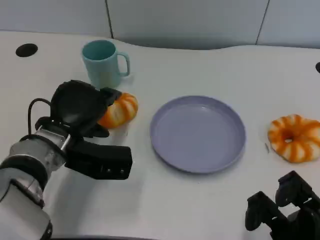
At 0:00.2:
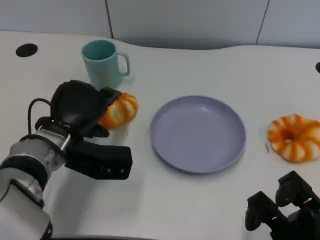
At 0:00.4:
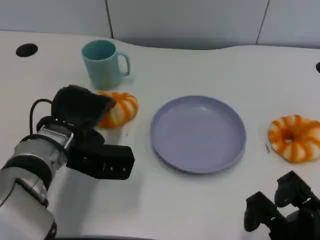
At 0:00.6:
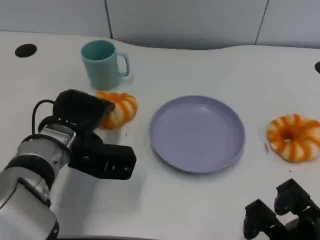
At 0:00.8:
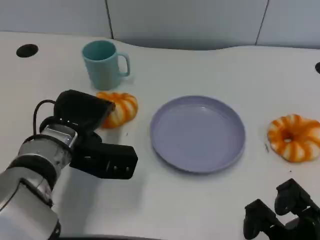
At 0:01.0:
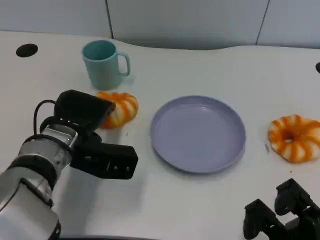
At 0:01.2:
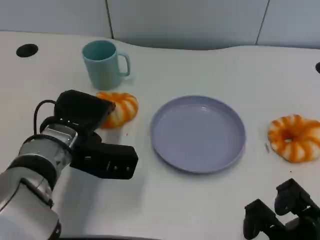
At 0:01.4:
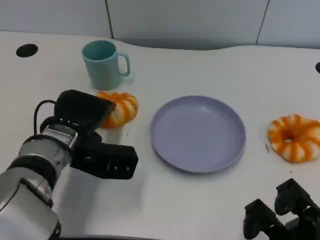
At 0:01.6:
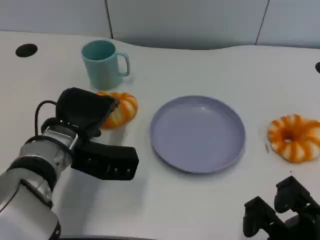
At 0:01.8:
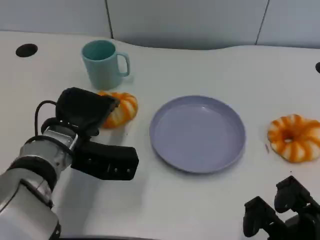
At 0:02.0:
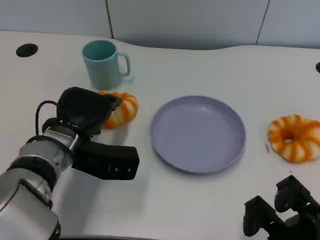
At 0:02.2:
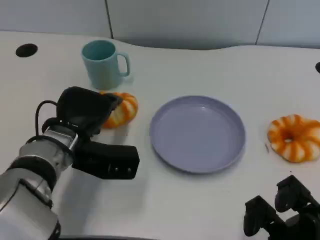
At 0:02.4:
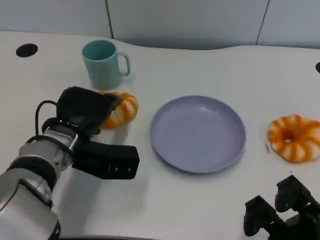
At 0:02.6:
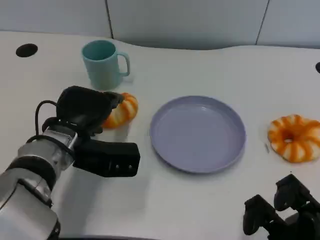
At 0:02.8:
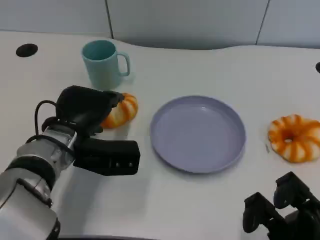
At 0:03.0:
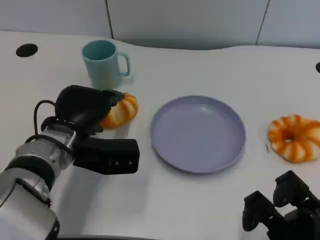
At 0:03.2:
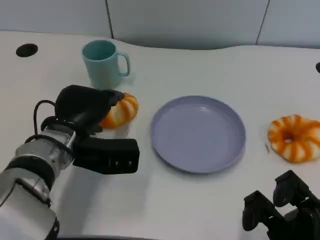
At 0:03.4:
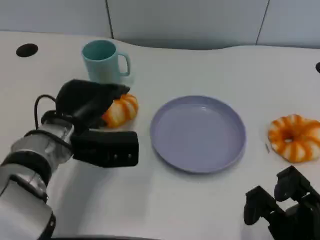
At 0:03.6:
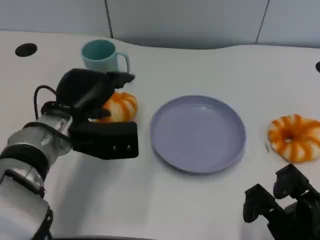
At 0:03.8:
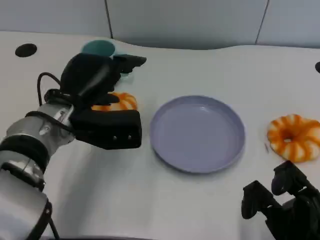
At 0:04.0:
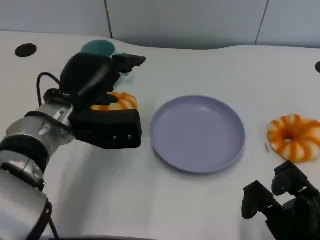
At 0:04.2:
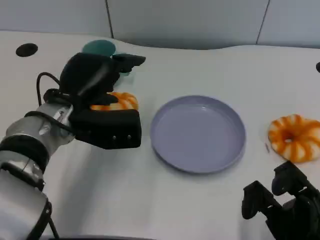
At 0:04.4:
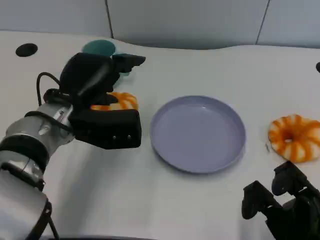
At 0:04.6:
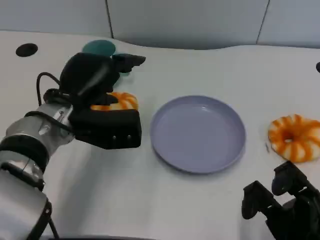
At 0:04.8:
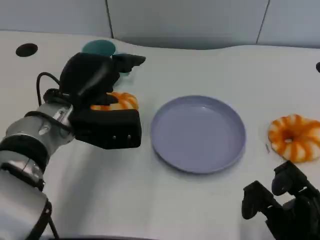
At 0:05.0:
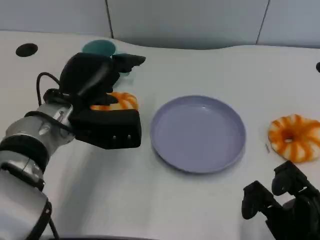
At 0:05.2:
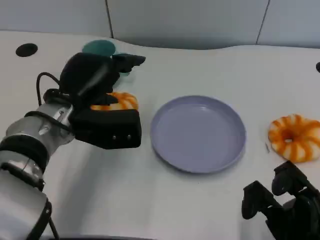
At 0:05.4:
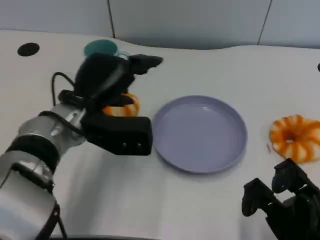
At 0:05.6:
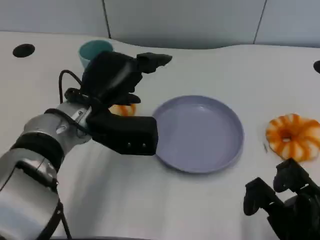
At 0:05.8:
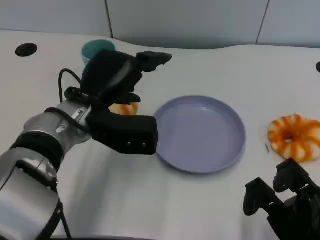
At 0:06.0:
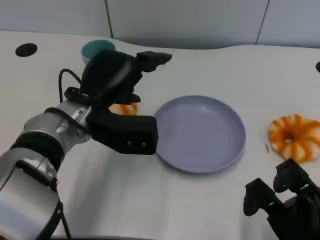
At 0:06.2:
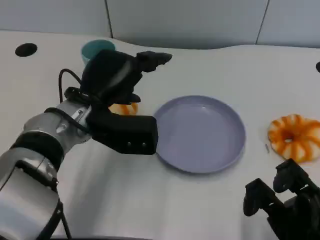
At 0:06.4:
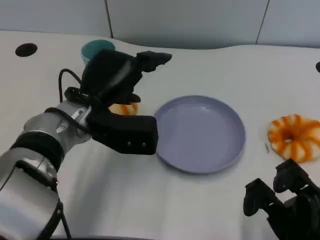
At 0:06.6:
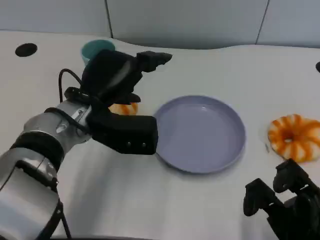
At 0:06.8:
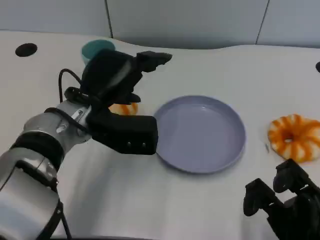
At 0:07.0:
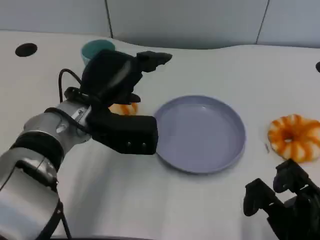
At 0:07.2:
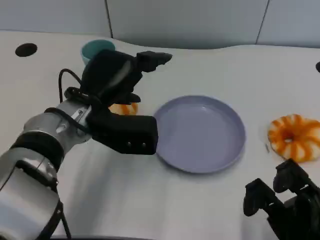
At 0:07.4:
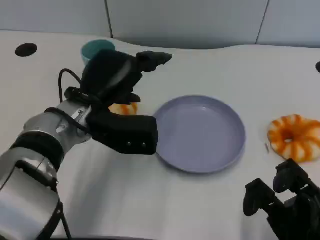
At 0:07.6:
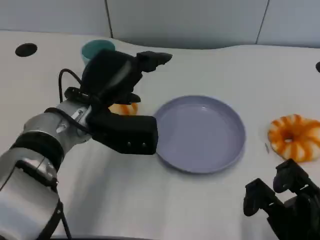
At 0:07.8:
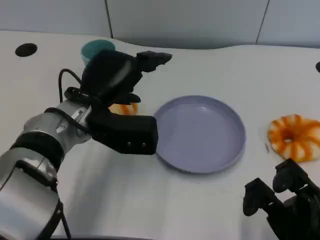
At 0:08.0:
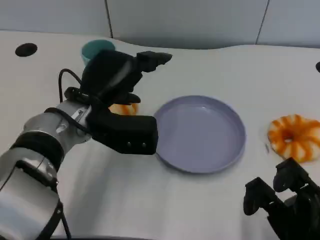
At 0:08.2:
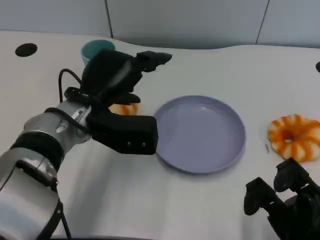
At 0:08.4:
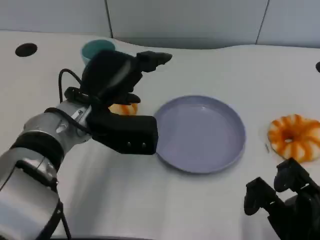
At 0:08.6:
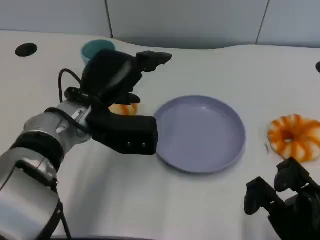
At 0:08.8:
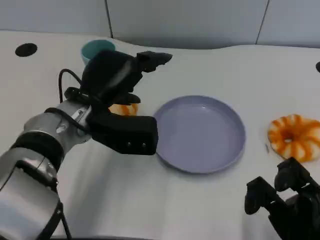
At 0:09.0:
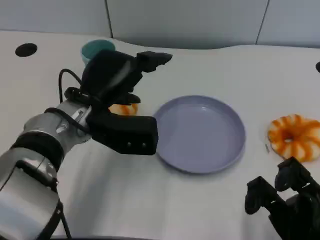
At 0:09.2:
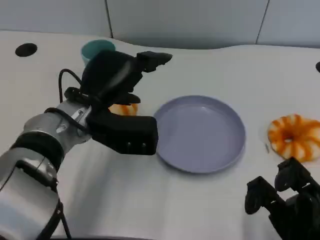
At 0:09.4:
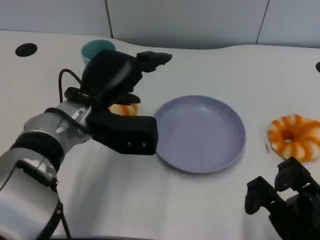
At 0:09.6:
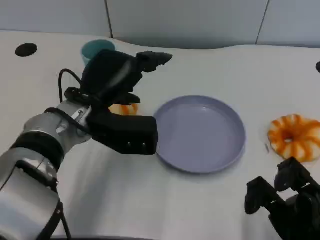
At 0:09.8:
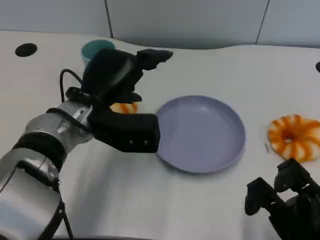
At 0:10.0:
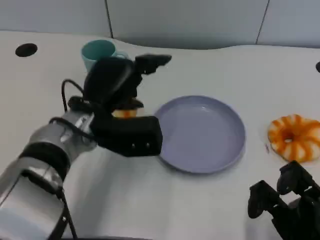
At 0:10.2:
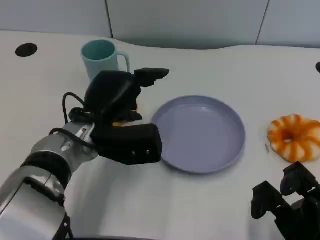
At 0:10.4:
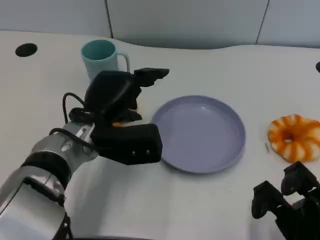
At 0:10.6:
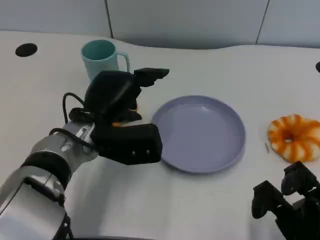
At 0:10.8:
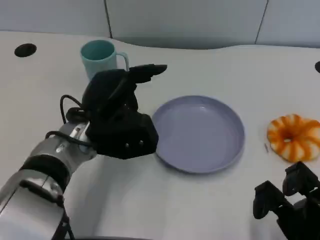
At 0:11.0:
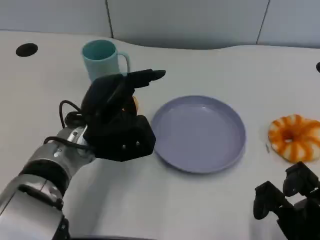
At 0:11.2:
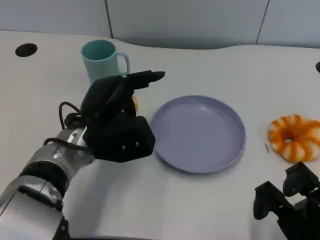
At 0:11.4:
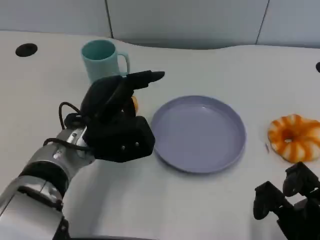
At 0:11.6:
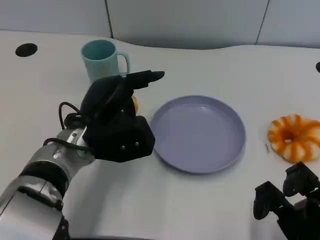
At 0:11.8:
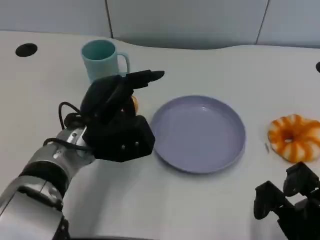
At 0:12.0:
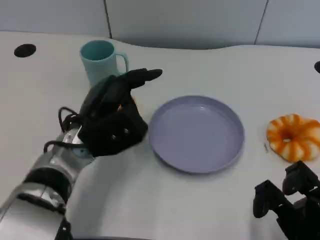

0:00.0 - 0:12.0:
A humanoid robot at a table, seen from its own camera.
Task of the whole recording: Grasp the bread from the table and place it into the plate.
0:00.0 - 0:03.0: There are only small adjustments of the hands.
0:03.0 - 0:04.4: There are only small adjustments of the hands.
0:04.4 - 0:06.0: There are only small adjustments of the hands.
0:06.0 - 0:09.0: Both hands stay put.
0:09.0 - 0:10.4: The hands stay close to where they were, moving slightly.

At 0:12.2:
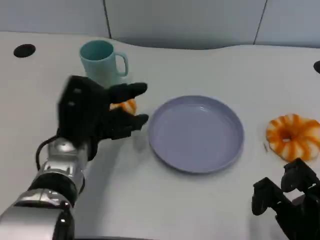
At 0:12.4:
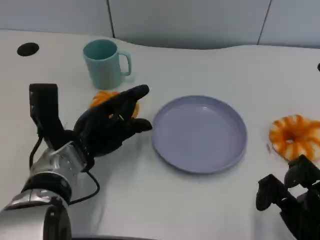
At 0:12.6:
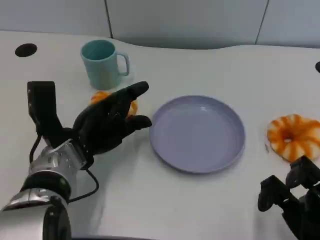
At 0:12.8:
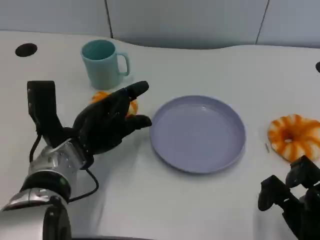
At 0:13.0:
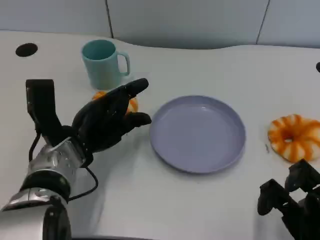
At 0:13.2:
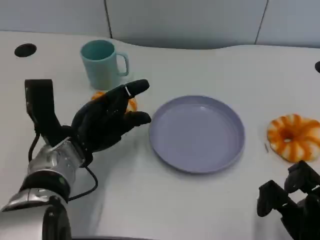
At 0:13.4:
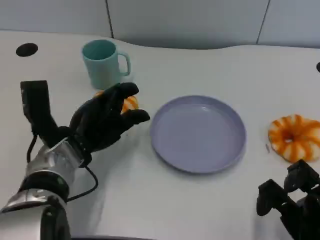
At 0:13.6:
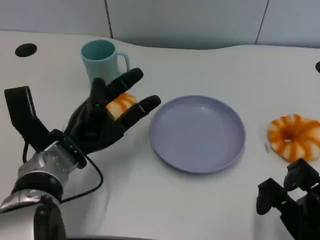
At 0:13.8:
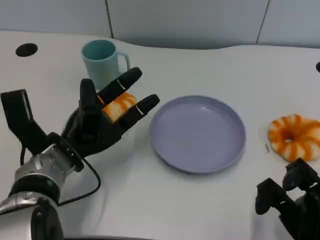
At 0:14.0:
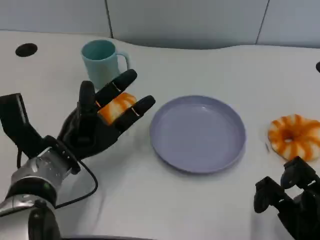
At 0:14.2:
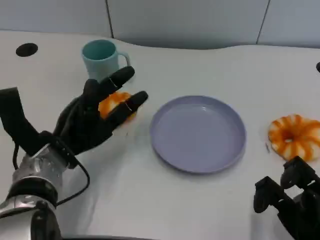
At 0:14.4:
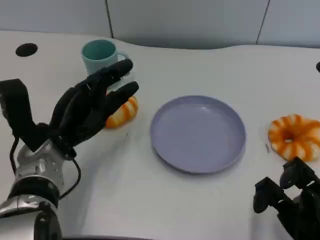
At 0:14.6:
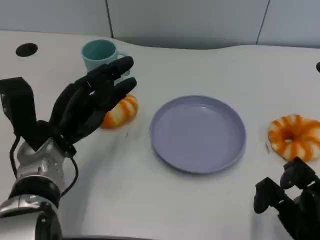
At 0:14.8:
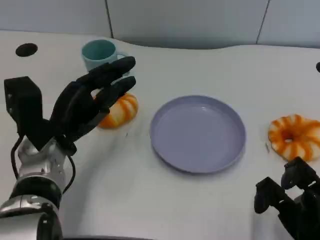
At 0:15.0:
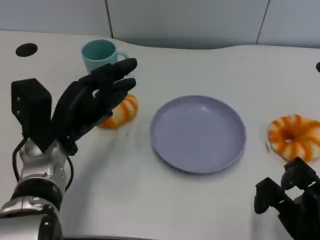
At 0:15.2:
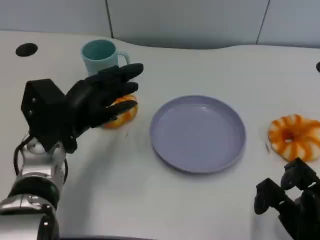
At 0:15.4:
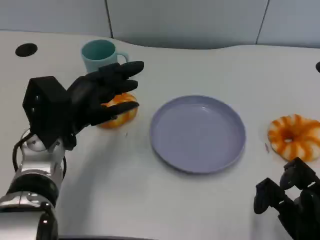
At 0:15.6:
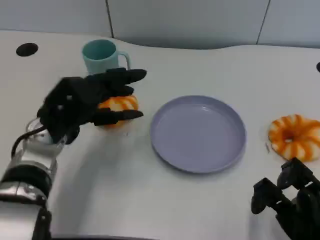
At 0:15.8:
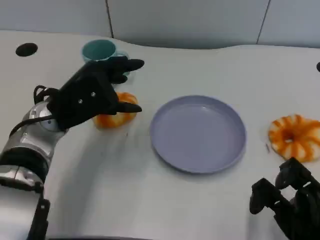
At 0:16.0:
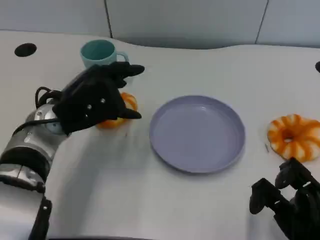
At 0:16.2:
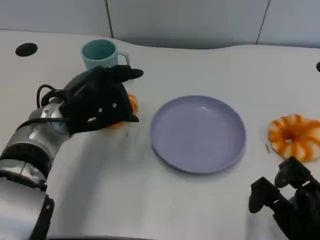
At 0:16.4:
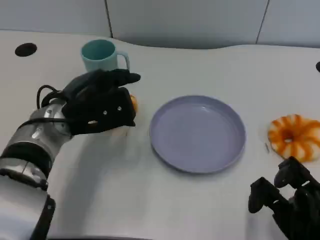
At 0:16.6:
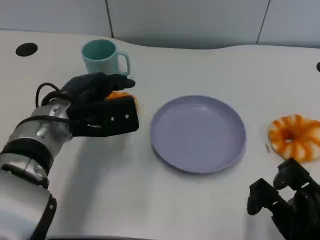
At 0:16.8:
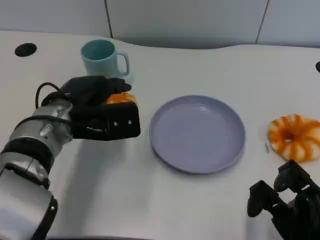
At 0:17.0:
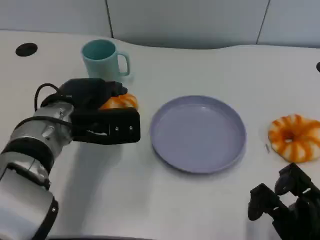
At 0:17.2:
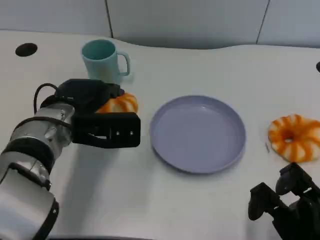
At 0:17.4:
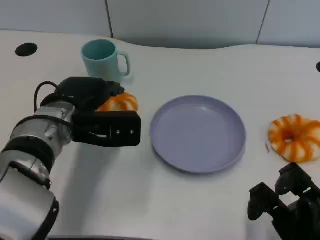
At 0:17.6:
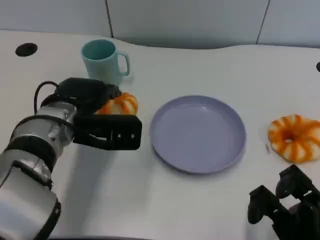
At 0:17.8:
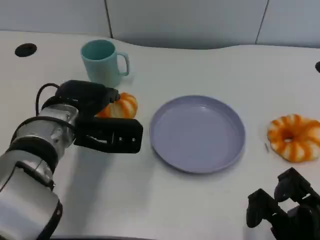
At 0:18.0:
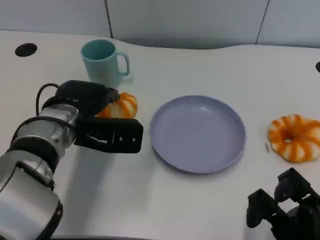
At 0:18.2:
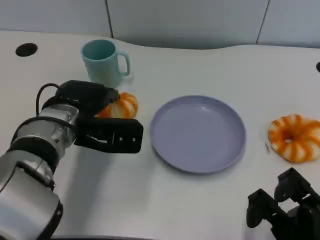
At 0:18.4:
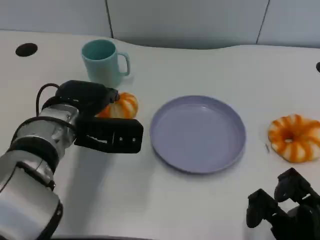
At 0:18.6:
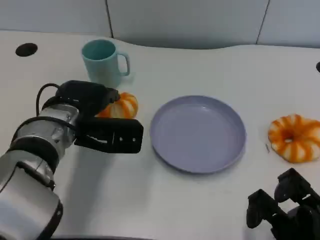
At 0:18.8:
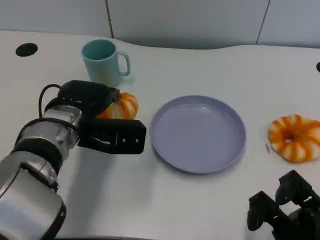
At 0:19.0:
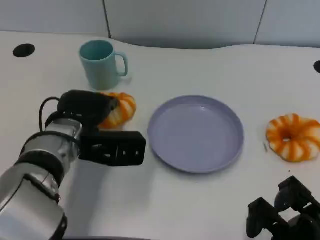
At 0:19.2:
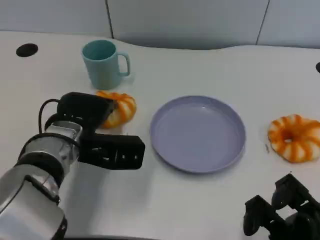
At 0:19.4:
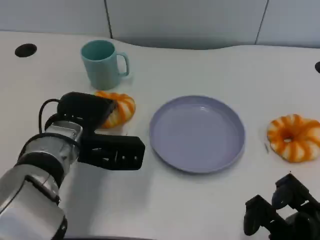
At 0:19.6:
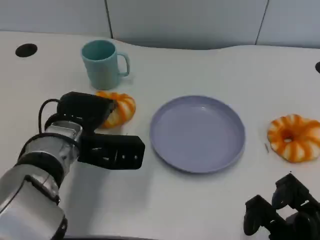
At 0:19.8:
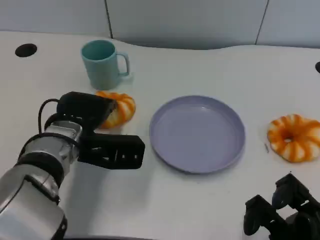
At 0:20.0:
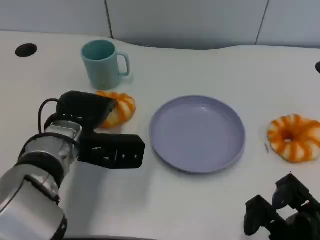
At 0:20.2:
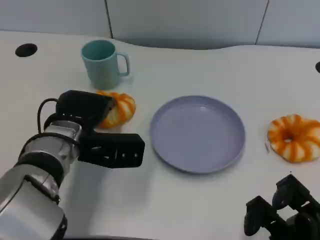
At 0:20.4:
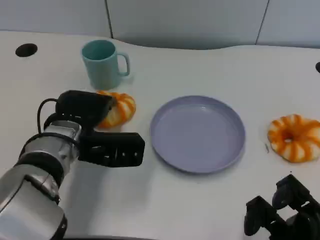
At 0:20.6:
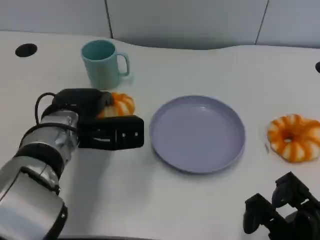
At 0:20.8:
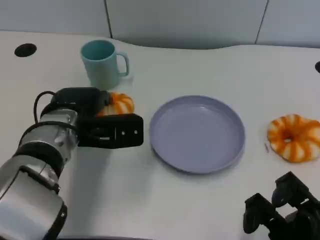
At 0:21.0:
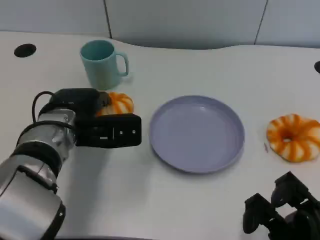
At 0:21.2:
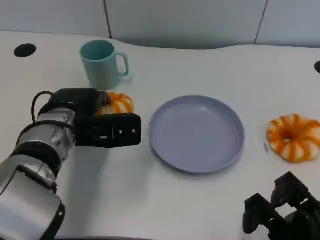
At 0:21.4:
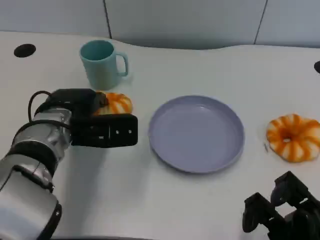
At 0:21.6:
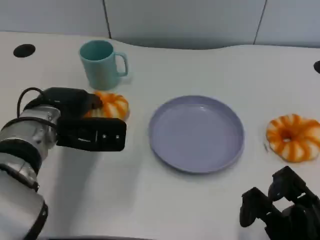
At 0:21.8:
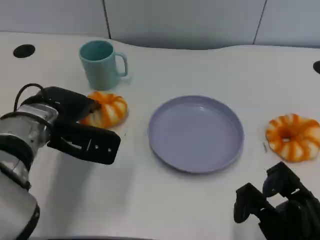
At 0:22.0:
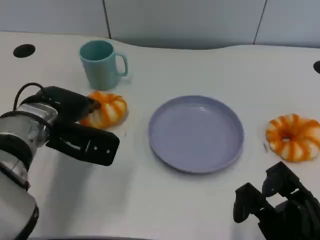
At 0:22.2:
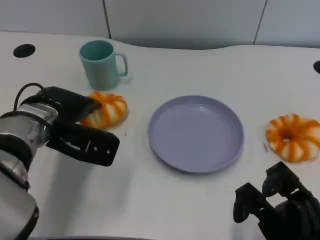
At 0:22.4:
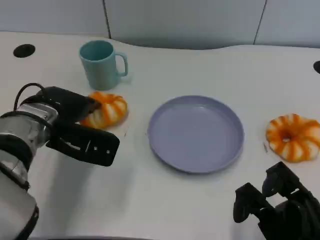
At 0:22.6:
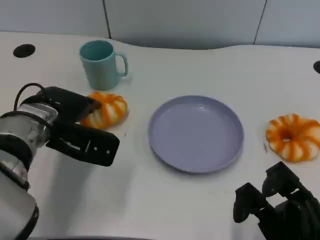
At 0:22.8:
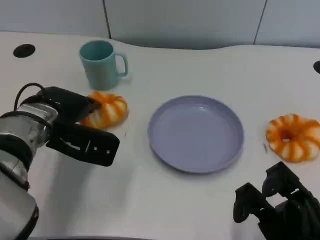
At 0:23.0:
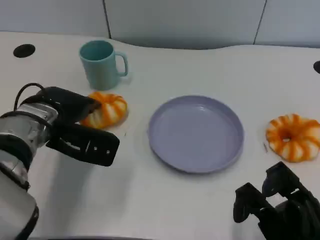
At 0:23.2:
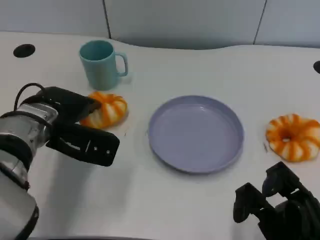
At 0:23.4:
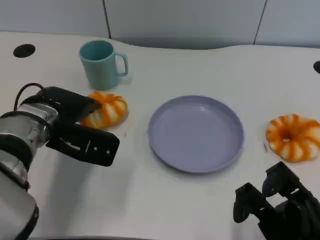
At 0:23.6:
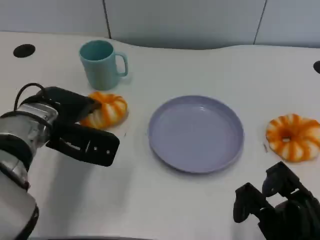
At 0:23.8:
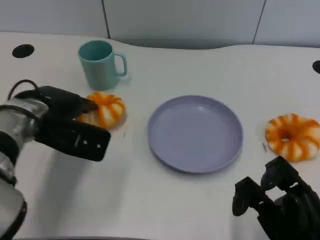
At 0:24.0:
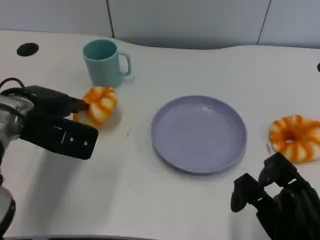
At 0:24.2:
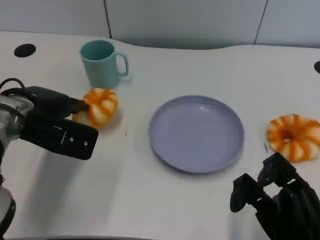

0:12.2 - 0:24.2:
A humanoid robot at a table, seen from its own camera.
Task of the whole recording: Grasp the bread from the table and place it into the plate.
0:18.2 - 0:21.2: There are only small adjustments of the hands.
0:22.6 - 0:24.2: The hands move only a little.
